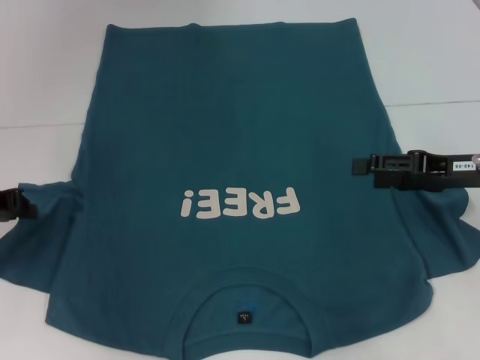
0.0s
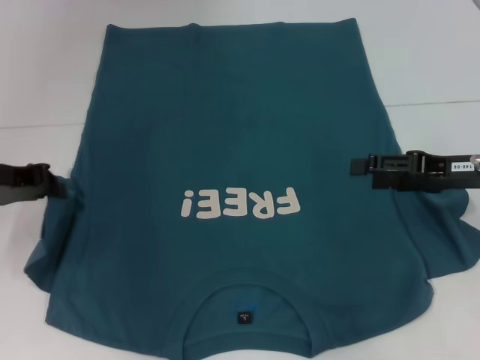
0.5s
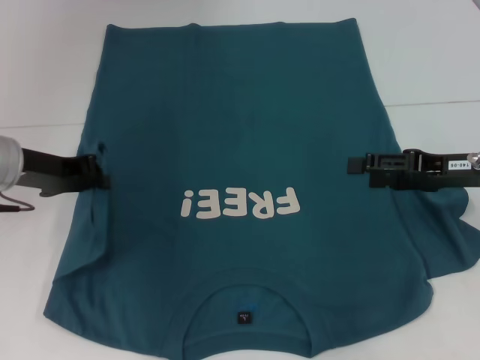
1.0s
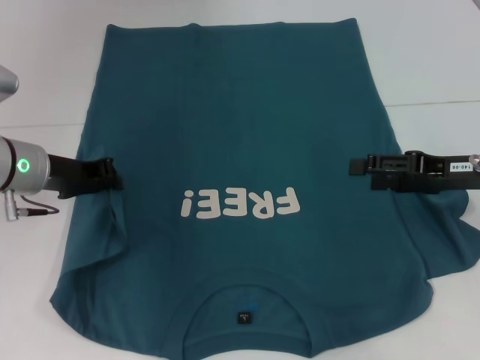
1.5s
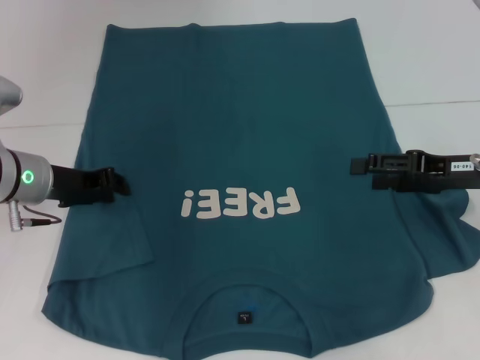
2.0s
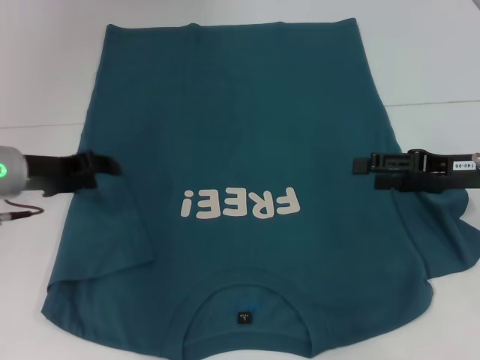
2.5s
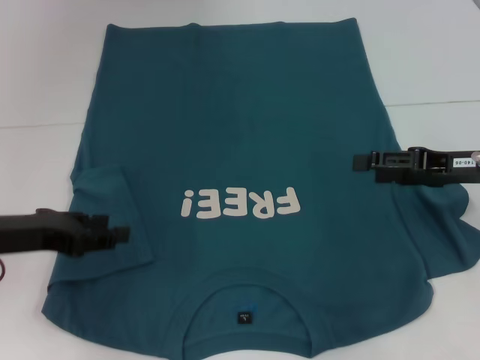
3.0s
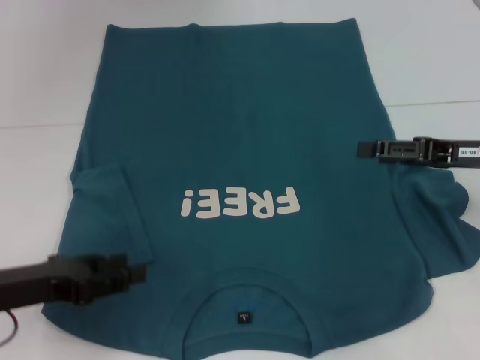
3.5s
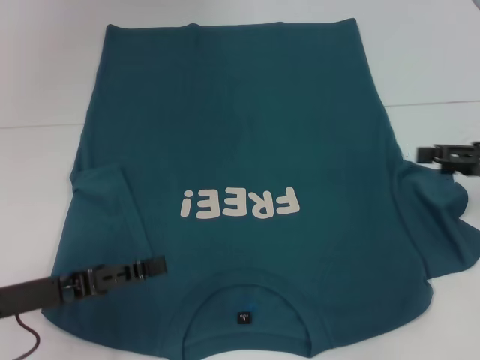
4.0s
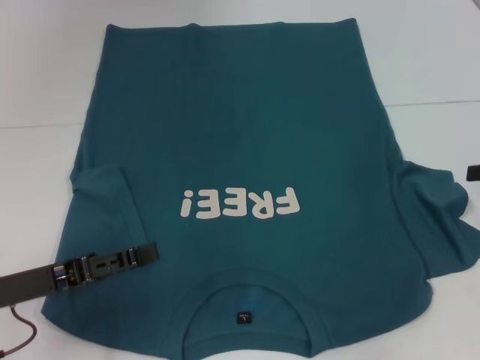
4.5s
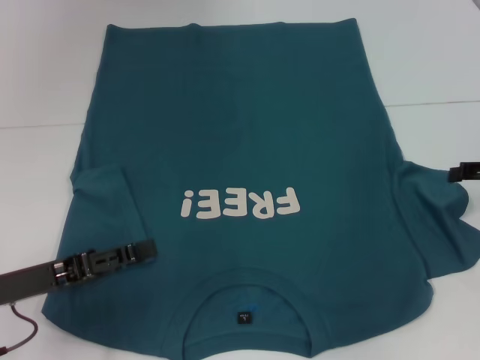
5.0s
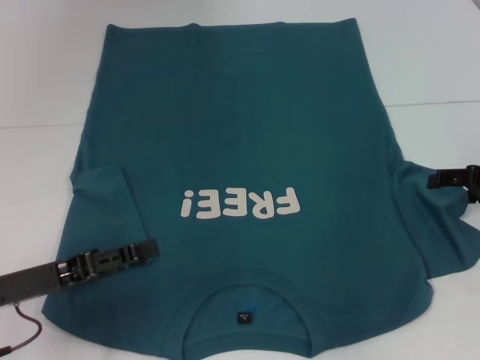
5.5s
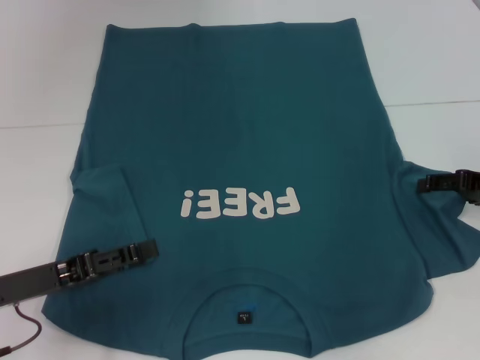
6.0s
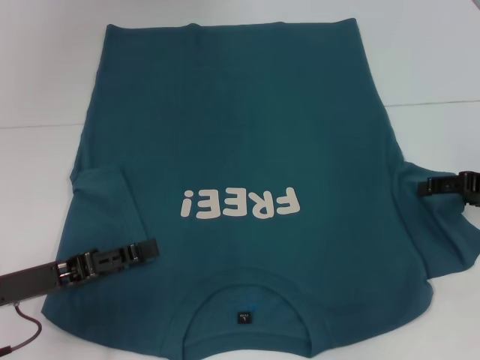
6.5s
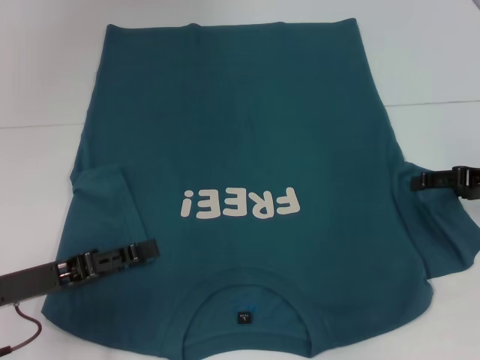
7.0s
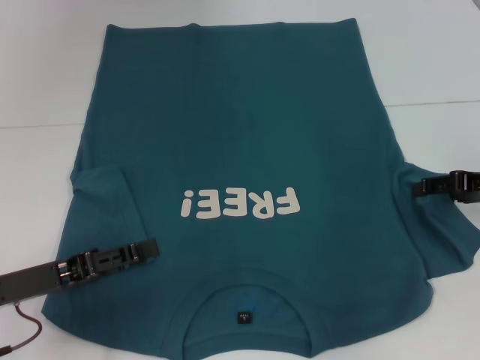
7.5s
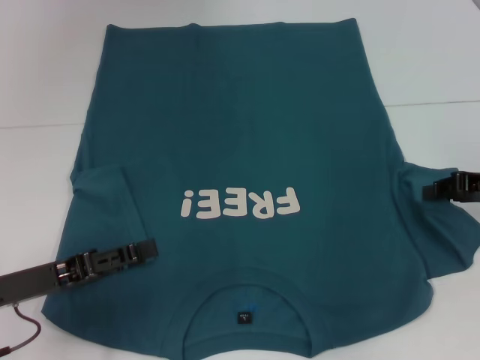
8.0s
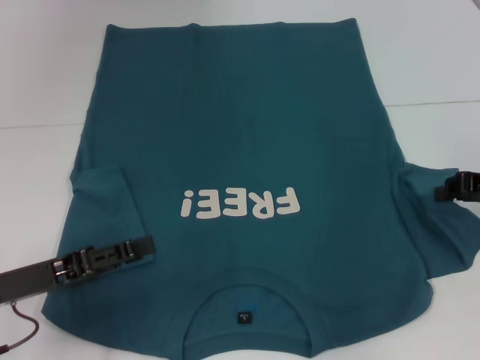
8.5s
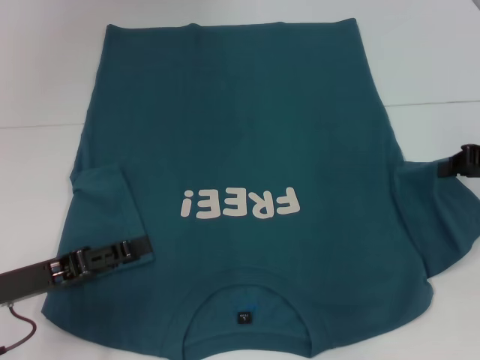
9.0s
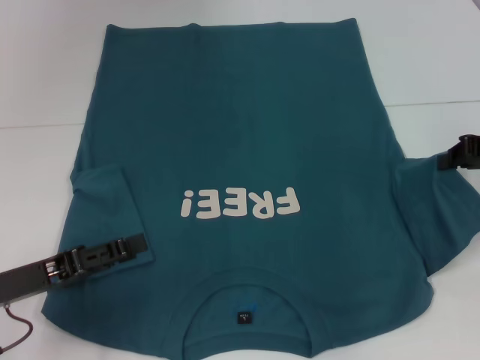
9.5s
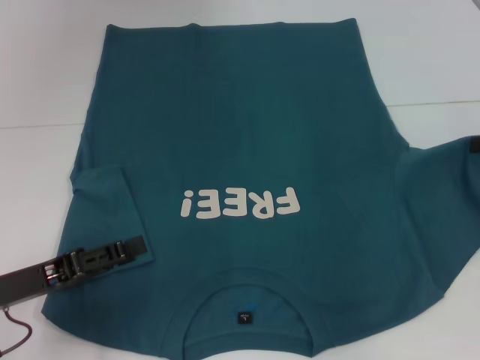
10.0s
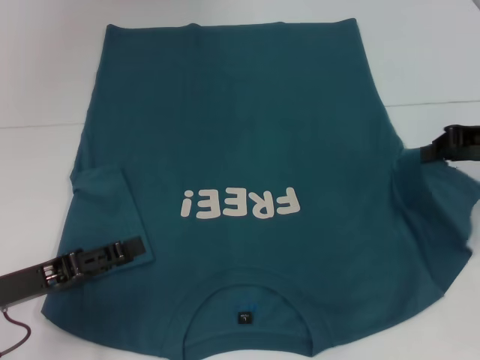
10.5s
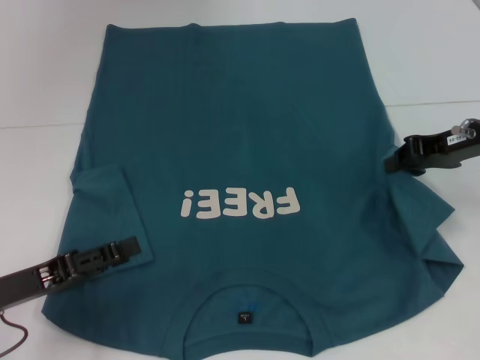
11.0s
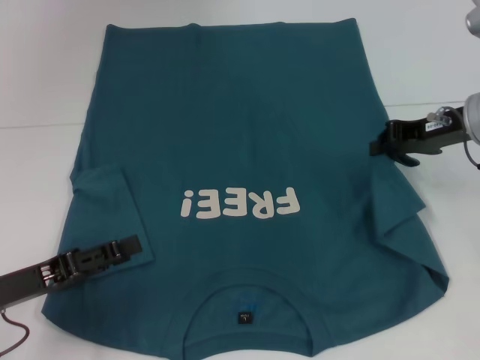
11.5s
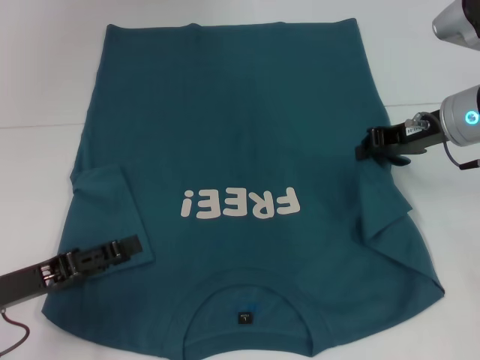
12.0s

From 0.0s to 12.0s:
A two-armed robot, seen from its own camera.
Step, from 0.0s to 2.0s: Fold the bottom left sleeve with your left hand.
From 0.0s to 2.0s: The left gripper goes about 10 cm to the right.
From 2.0s to 4.0s: The left gripper goes some 15 cm backward, and opens. Meanwhile the right gripper goes some 5 cm to the right.
From 6.0s to 8.0s: The right gripper closes up.
From 8.0s to 10.0s: The right gripper heads upward, covering approximately 5 cm, and closes.
From 10.0s to 12.0s: The right gripper moves to the left, some 10 cm.

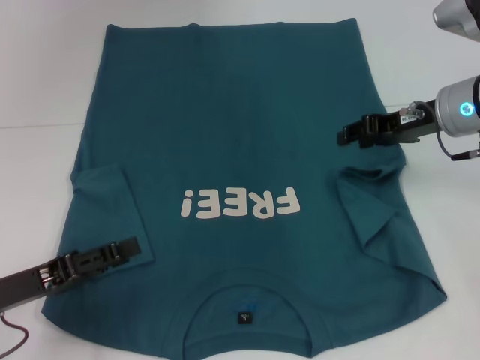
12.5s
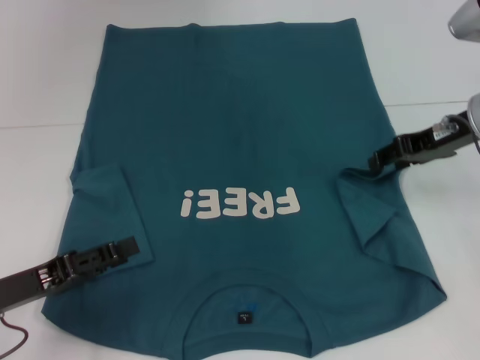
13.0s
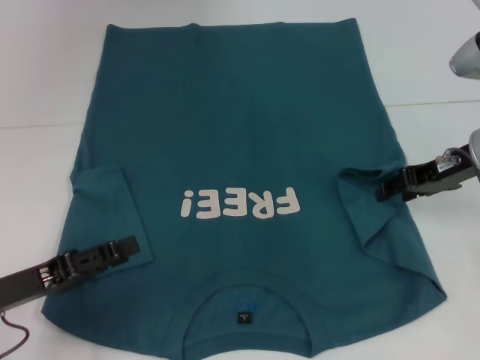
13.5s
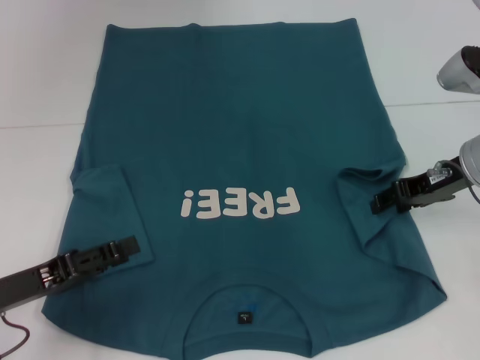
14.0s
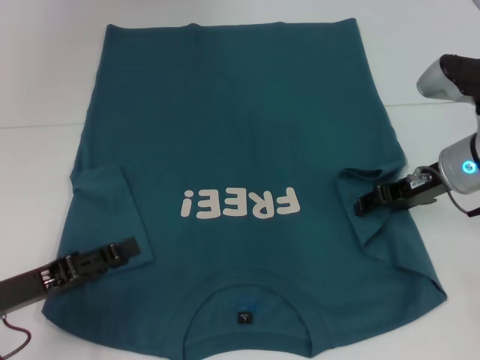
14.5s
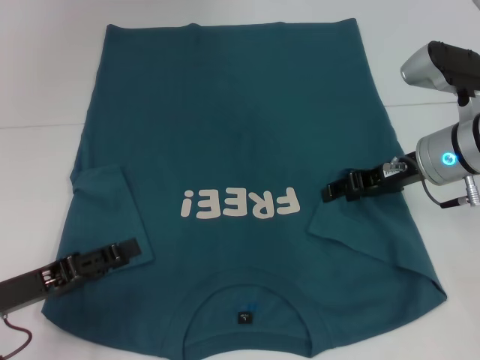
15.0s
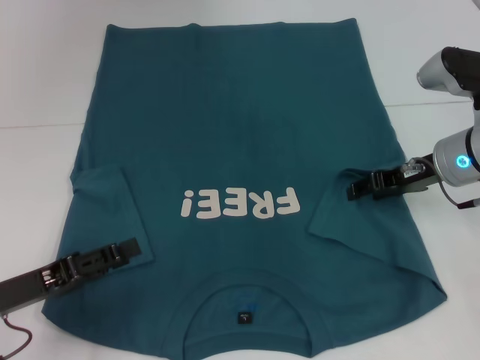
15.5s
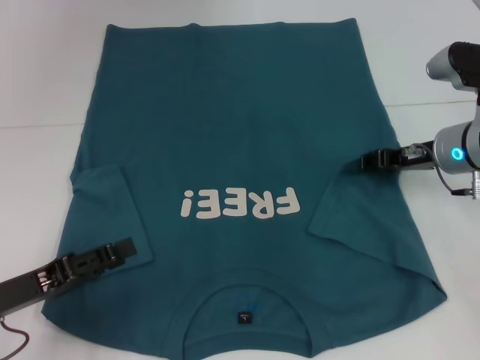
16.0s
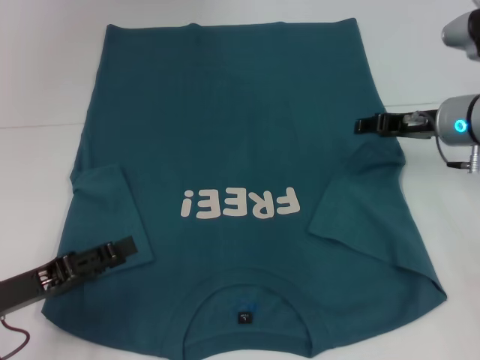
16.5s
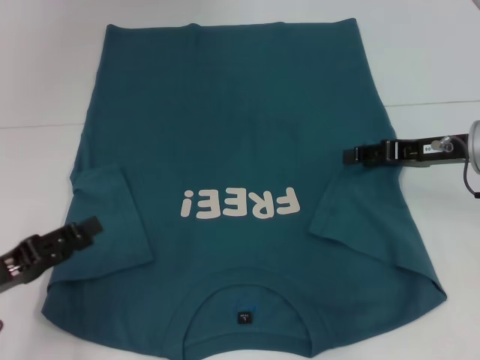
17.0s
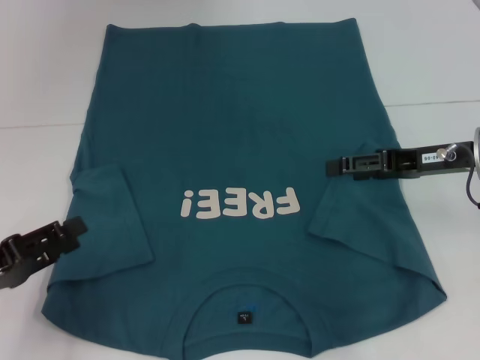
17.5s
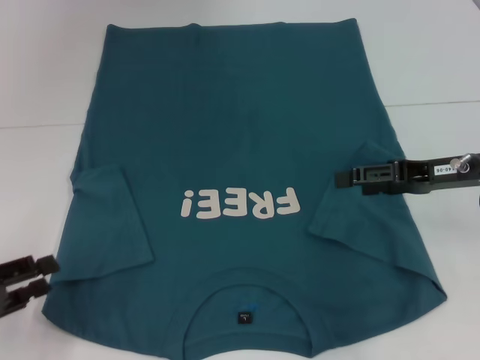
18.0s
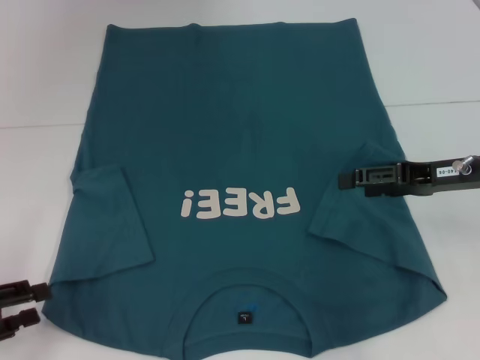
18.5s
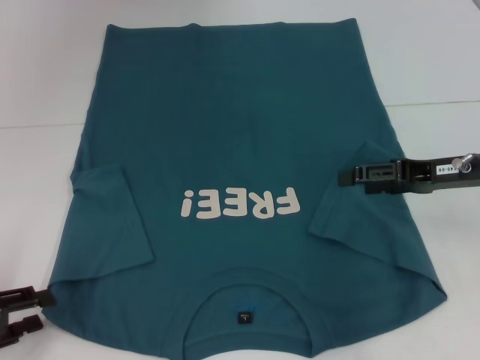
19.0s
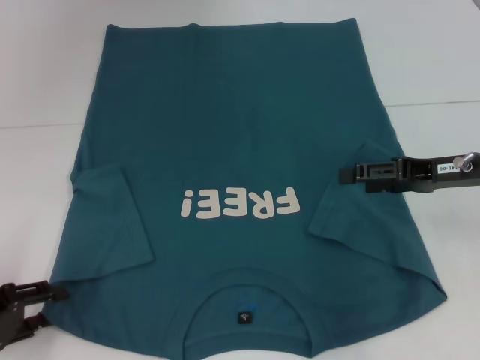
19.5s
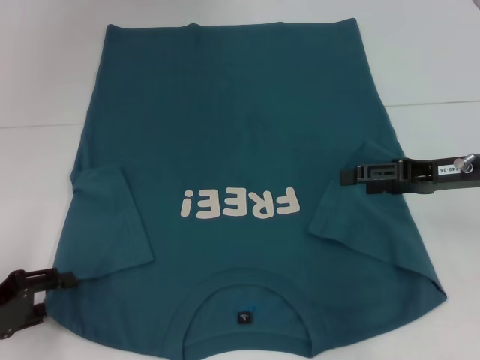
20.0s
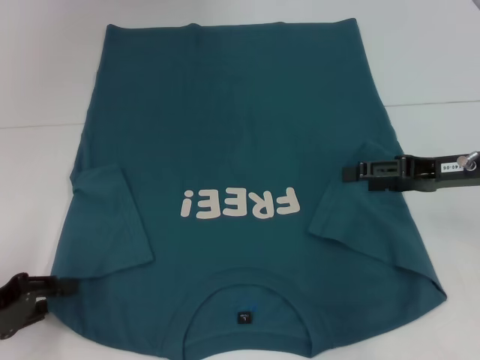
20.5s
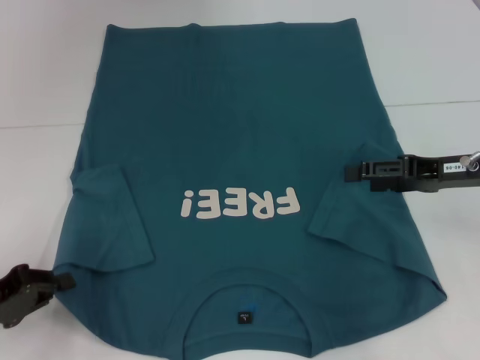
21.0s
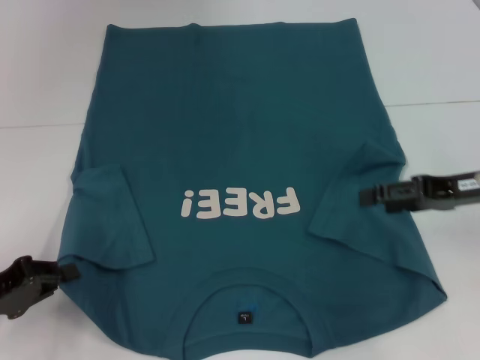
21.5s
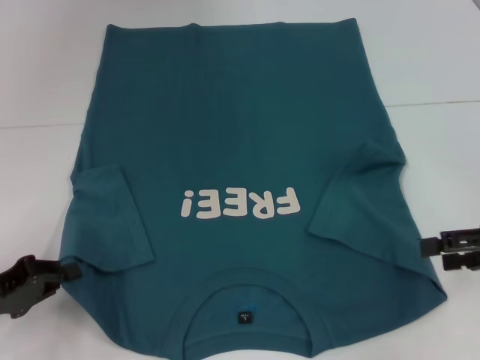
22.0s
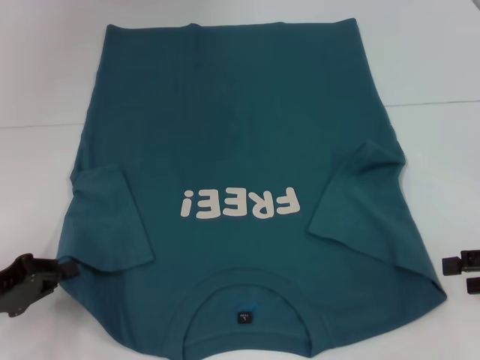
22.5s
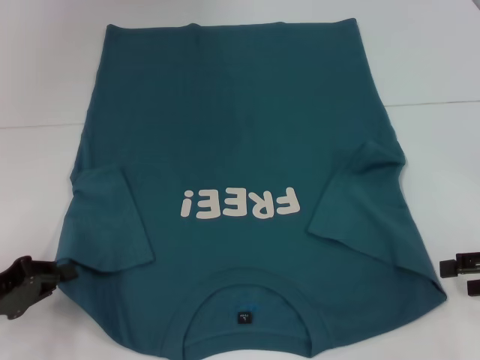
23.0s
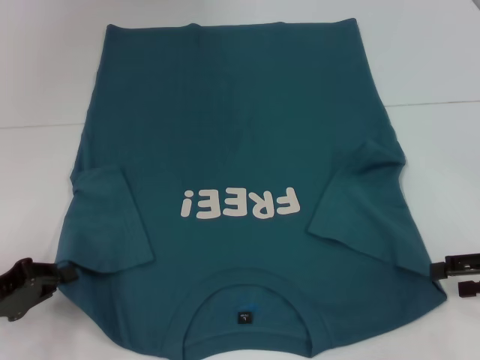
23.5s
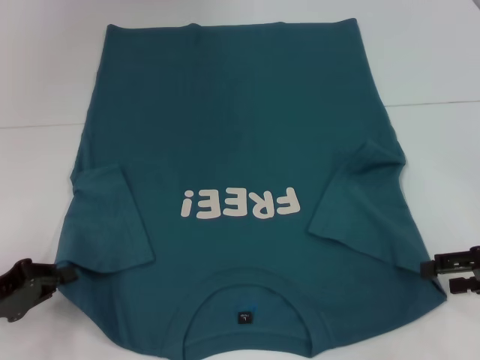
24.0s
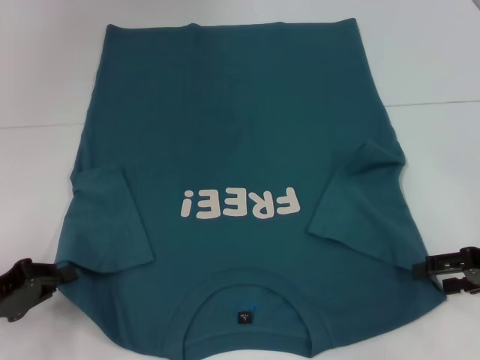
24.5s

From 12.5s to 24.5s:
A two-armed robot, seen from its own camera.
Step, from 12.5s to 17.0s: Fold the bottom right sleeve to the right.
Step, from 17.5s to 20.5s: Grab the bottom left corner with your left hand.
From 12.5s to 14.5s: The right gripper changes place by roughly 5 cm.
From 16.5s to 18.5s: The left gripper travels to the left by approximately 5 cm, while the right gripper shifts some 10 cm backward, and opens.
From 18.5s to 20.5s: There are only small adjustments of the grippers.
From 20.5s to 22.5s: The left gripper closes. The right gripper shifts roughly 10 cm to the right and backward.
From 22.5s to 24.5s: There are only small adjustments of the grippers.

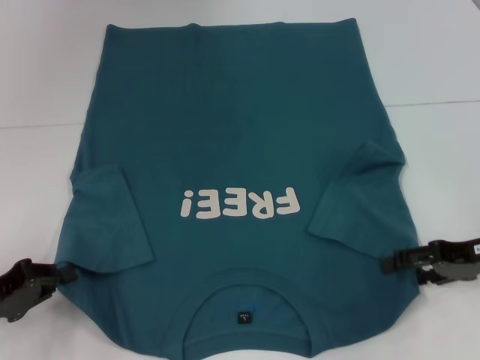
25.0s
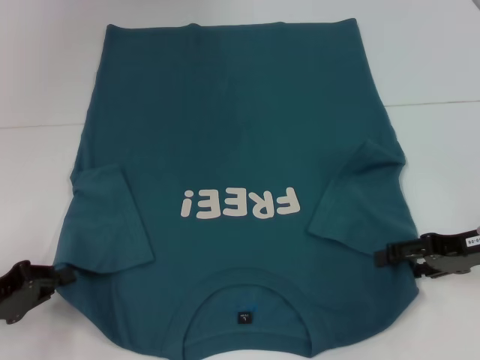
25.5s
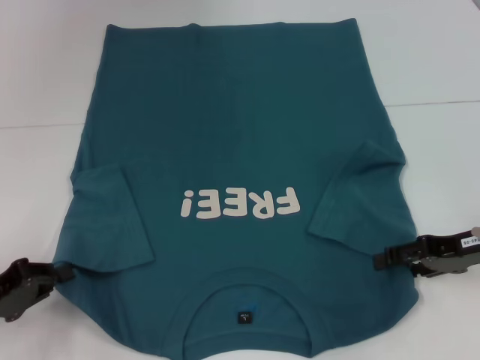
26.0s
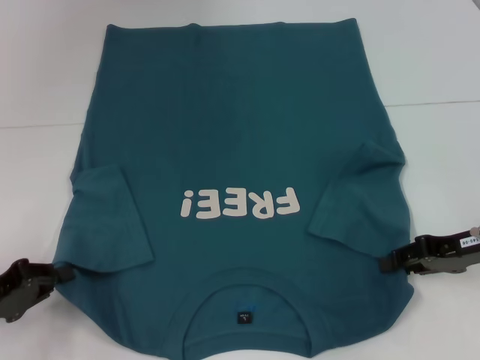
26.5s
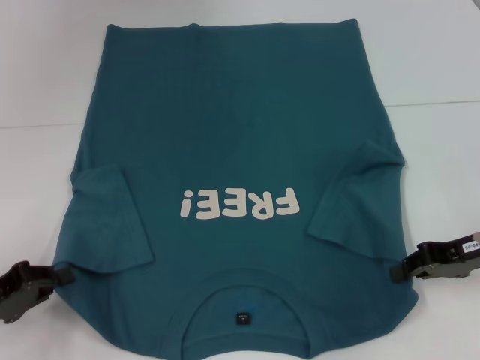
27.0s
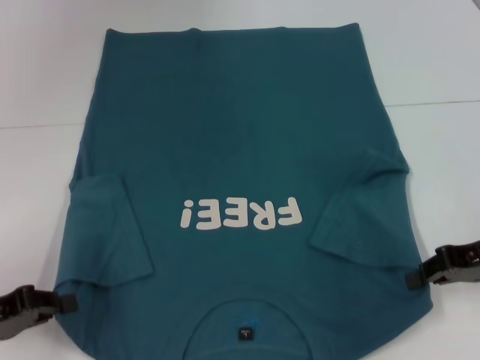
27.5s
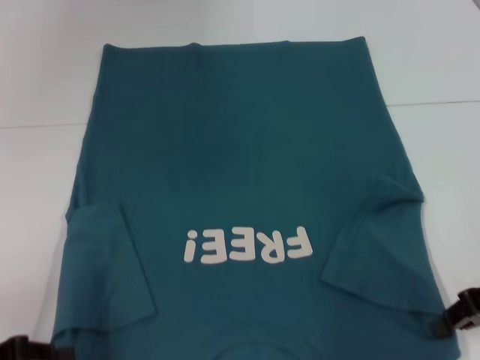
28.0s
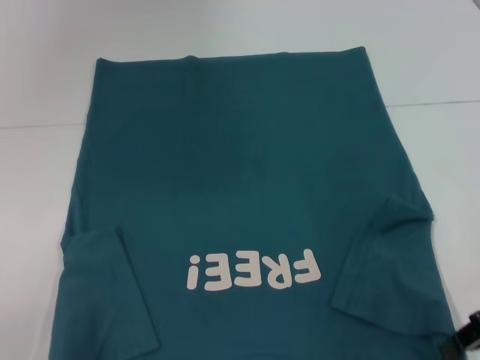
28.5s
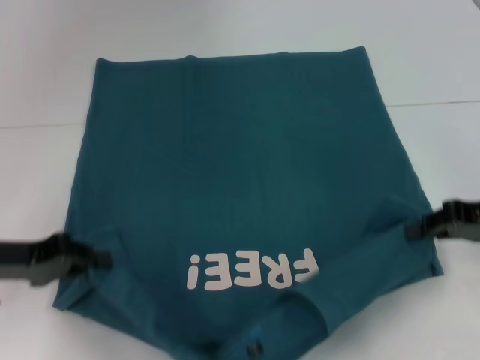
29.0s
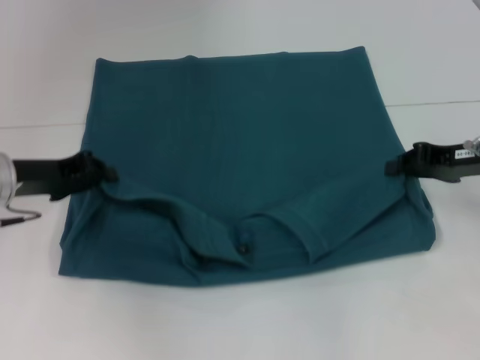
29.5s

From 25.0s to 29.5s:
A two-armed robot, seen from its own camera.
From 25.0s to 27.0s: The right gripper closes up.
From 27.0s to 29.5s: The right gripper moves some 5 cm. Meanwhile the left gripper is displaced forward, upward and to the right by some 15 cm.
